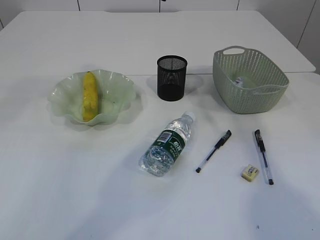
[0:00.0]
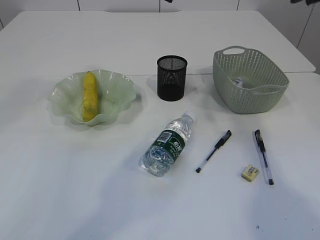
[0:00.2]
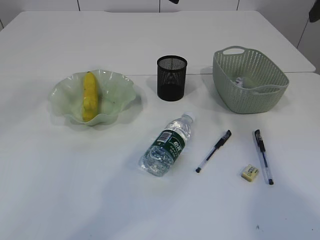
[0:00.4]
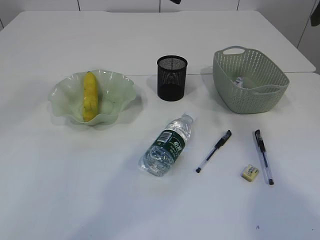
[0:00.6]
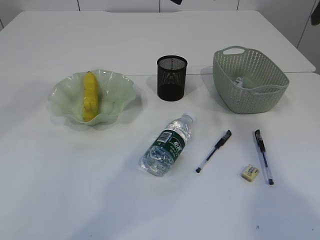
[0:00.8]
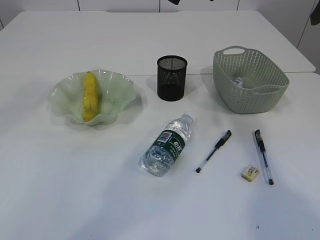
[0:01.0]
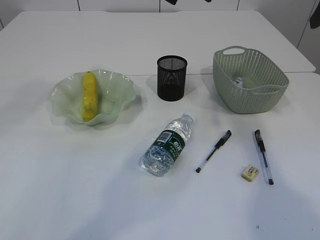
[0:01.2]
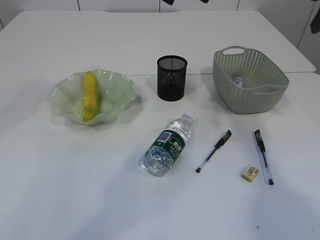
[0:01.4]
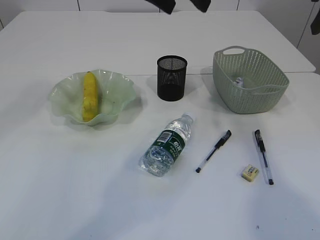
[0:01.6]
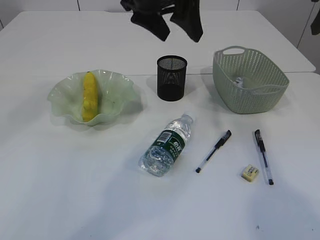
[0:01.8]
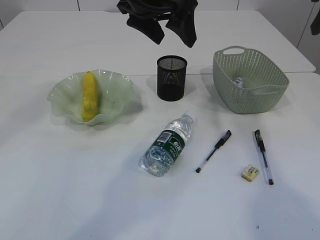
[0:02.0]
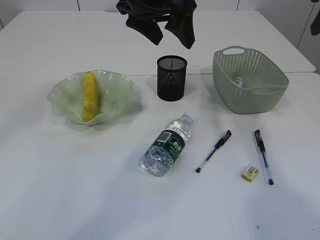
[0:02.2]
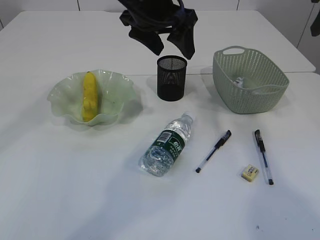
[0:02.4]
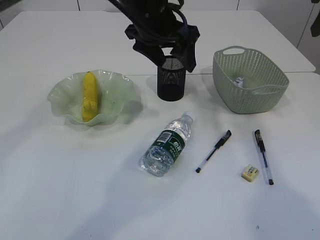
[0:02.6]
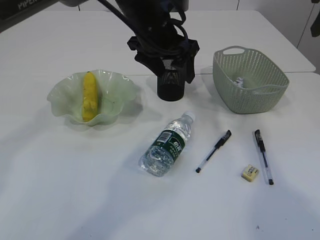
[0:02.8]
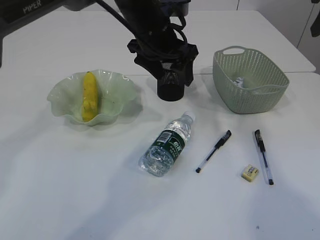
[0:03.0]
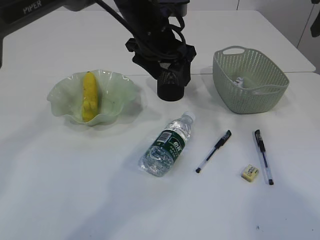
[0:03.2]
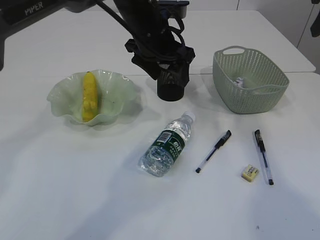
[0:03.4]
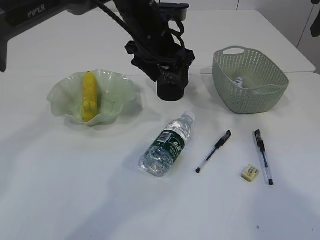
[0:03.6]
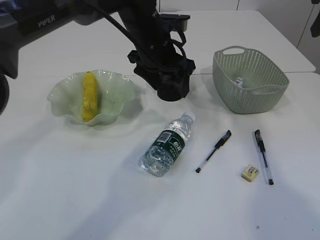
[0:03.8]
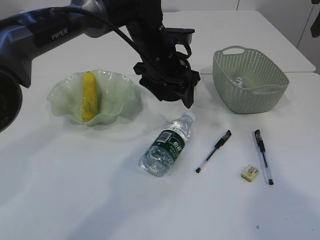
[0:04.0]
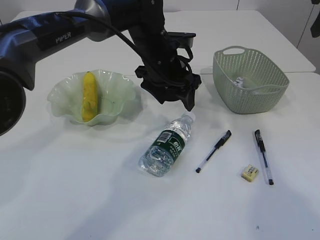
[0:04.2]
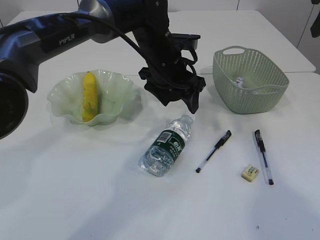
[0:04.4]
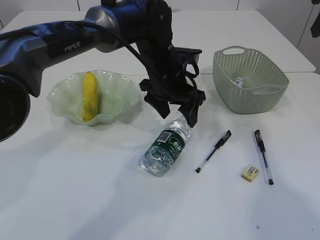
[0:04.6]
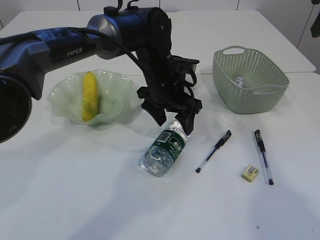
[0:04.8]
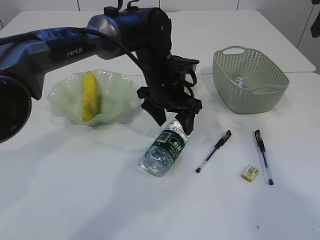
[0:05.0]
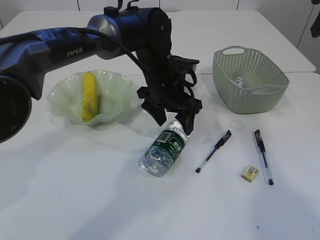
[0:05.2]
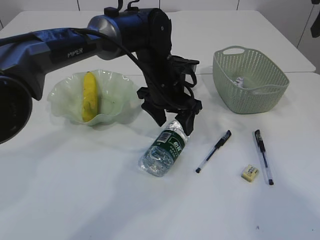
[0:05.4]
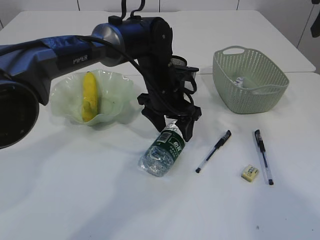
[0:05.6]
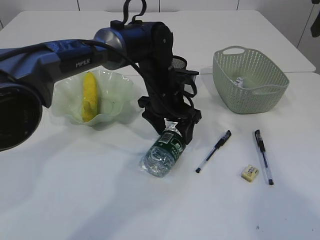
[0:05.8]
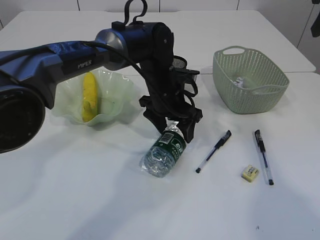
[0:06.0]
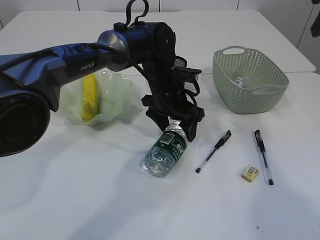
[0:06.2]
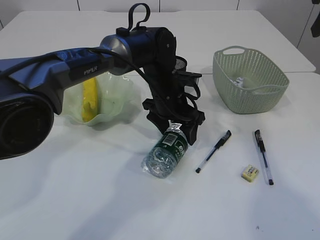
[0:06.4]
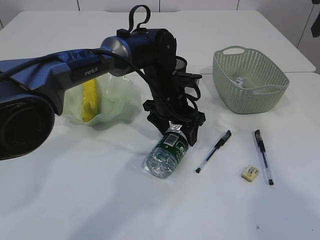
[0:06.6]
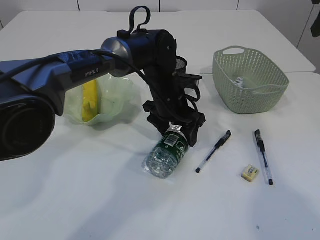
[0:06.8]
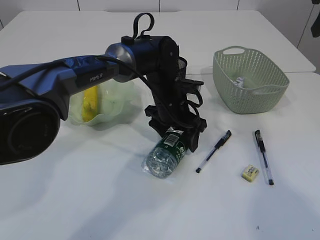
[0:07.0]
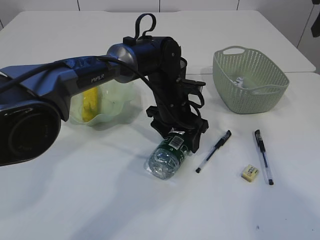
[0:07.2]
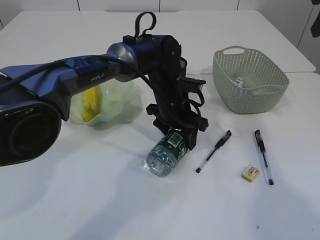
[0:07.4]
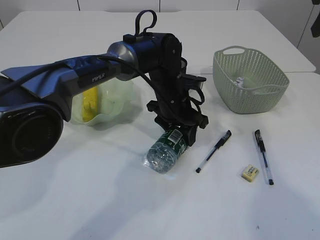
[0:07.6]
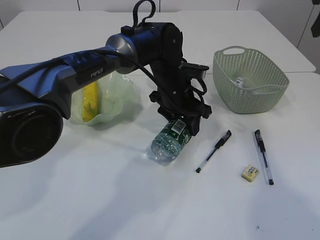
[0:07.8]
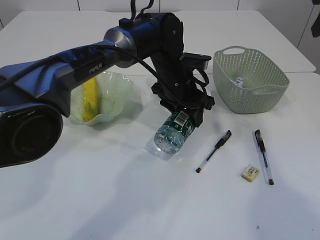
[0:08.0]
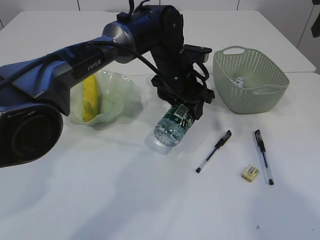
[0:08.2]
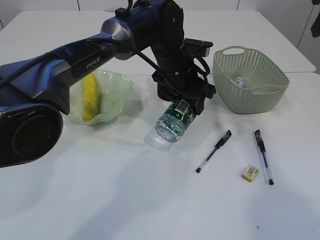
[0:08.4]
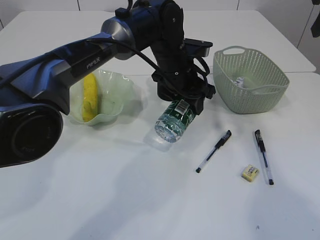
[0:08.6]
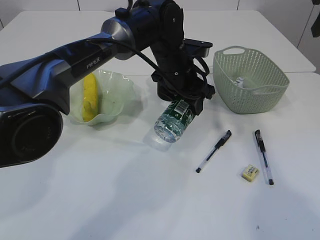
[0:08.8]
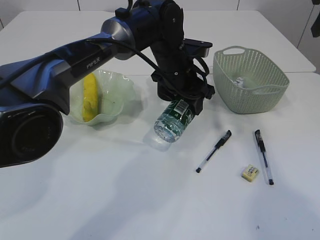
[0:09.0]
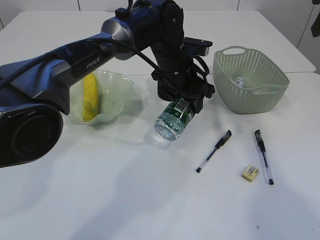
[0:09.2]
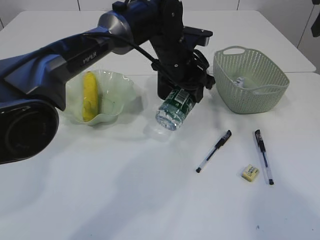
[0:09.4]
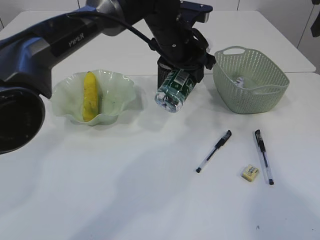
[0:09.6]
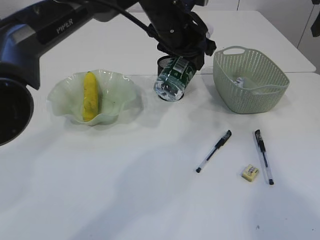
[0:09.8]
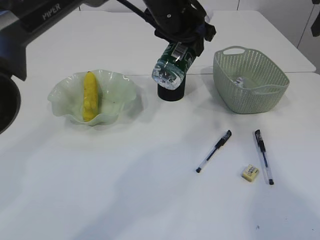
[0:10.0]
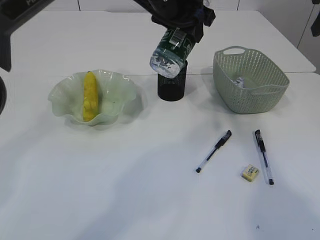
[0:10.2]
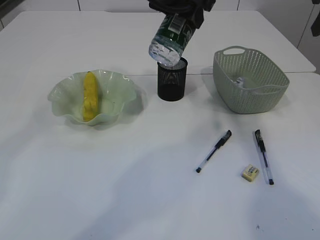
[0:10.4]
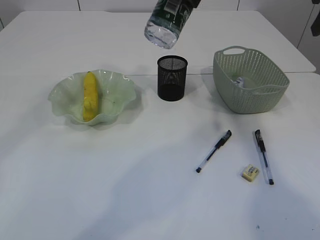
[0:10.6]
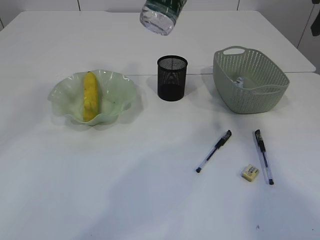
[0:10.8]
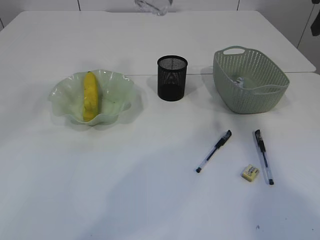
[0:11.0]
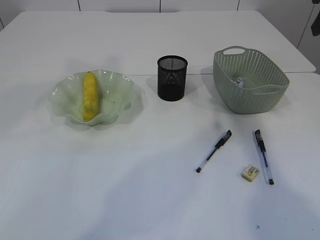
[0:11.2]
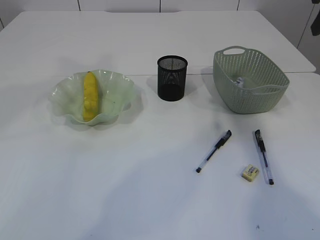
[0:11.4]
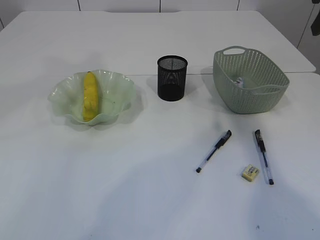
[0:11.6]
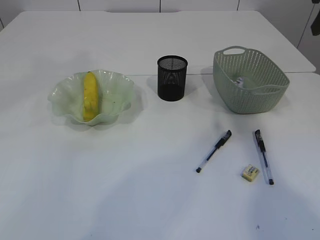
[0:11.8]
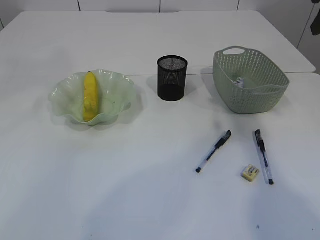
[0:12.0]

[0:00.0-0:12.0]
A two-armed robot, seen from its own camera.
Step, 0:00.0 to 0:09.4: Pick up the bottle with the left arm.
0:01.6 to 0:03.0: The left gripper goes about 10 cm downward.
0:03.0 to 0:04.4: The left gripper travels downward by roughly 5 cm.
0:04.4 to 0:06.0: The left gripper is displaced downward by about 5 cm.
0:06.0 to 0:07.6: The left gripper closes its fingers.
0:07.6 to 0:09.0: The left gripper travels upward by some 5 cm.
0:09.0 to 0:10.4: The left gripper is displaced upward by some 15 cm.
0:10.4 to 0:12.0: The left gripper goes approximately 25 cm upward, backward and to the left.

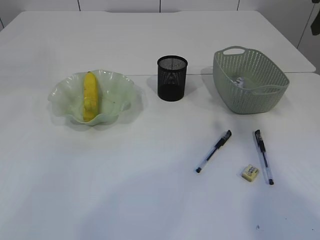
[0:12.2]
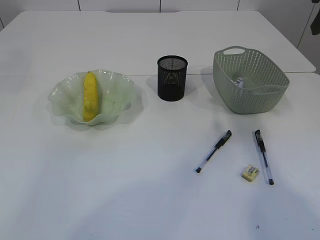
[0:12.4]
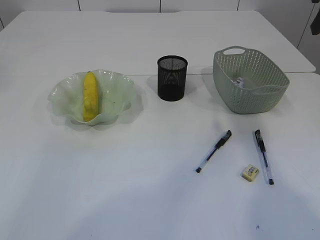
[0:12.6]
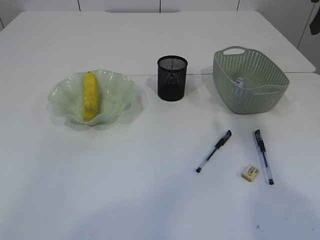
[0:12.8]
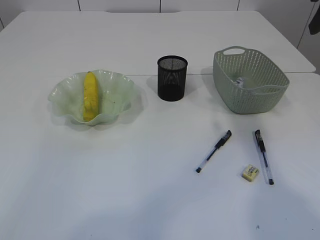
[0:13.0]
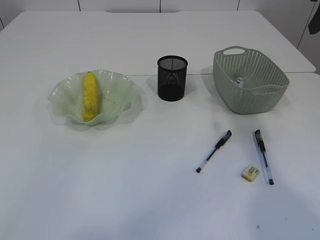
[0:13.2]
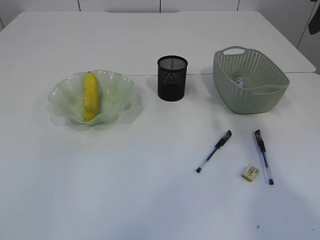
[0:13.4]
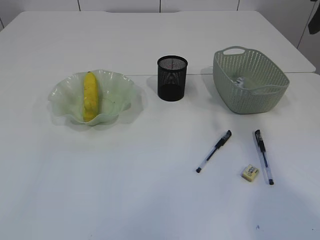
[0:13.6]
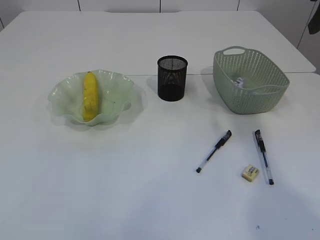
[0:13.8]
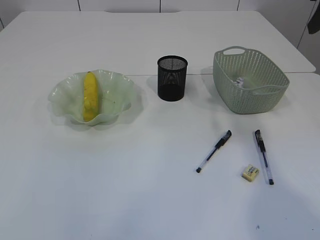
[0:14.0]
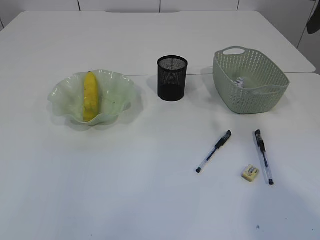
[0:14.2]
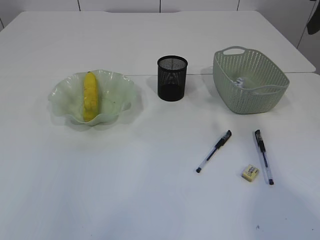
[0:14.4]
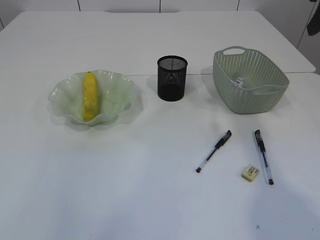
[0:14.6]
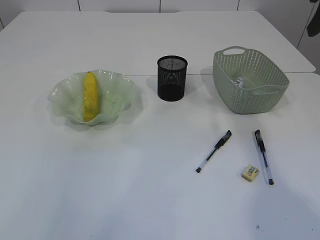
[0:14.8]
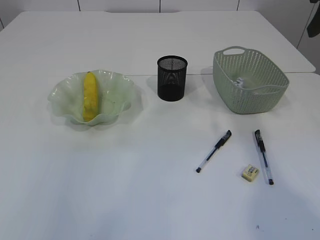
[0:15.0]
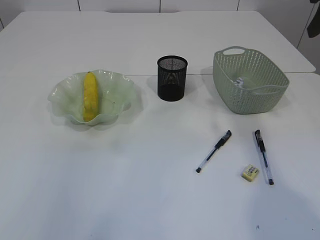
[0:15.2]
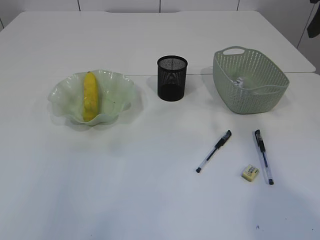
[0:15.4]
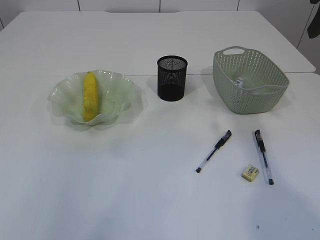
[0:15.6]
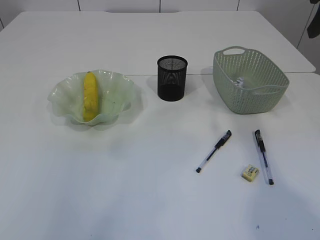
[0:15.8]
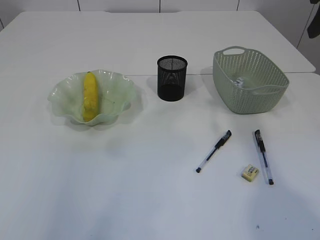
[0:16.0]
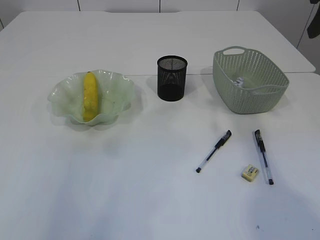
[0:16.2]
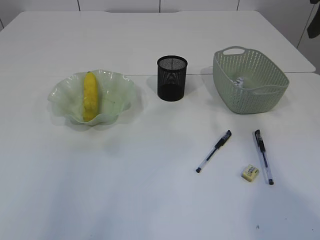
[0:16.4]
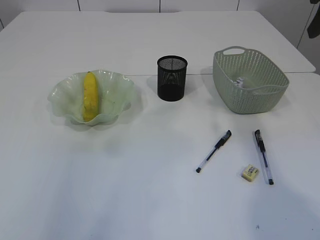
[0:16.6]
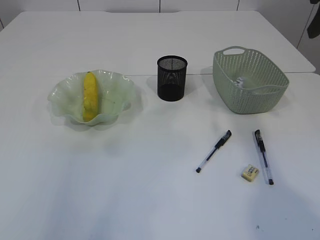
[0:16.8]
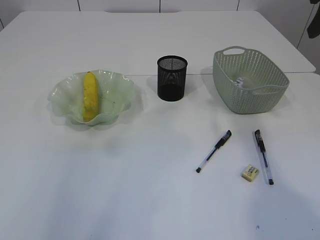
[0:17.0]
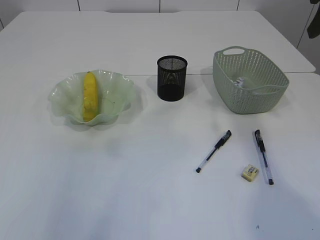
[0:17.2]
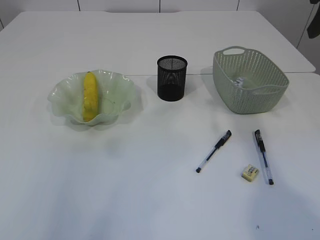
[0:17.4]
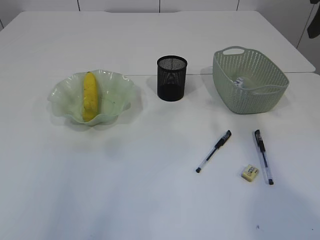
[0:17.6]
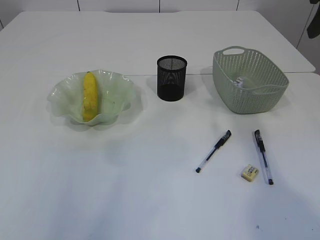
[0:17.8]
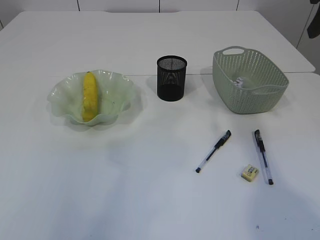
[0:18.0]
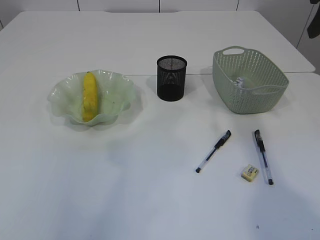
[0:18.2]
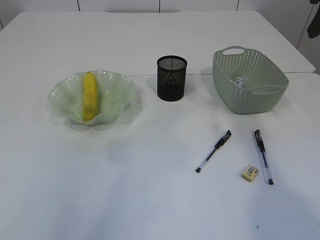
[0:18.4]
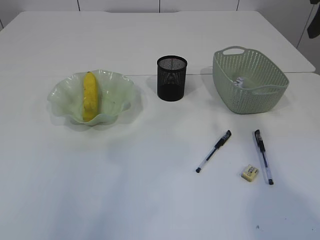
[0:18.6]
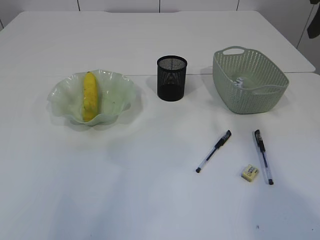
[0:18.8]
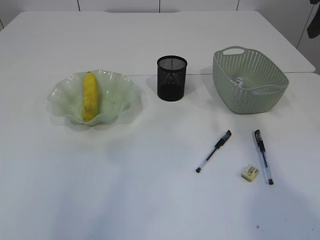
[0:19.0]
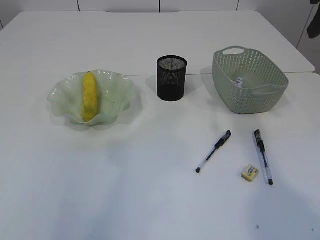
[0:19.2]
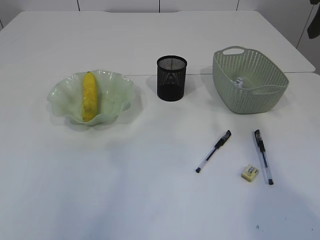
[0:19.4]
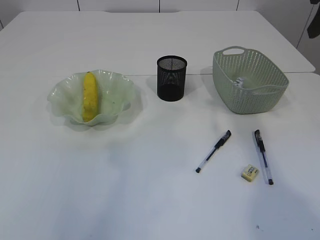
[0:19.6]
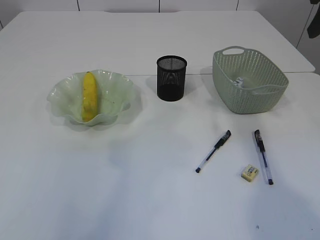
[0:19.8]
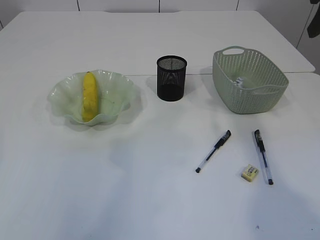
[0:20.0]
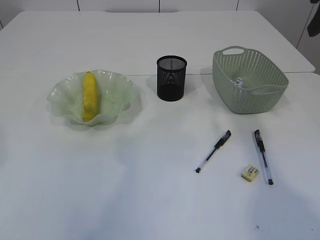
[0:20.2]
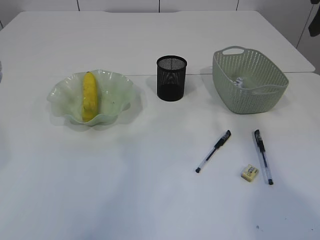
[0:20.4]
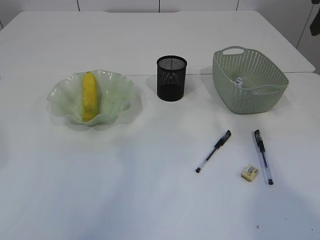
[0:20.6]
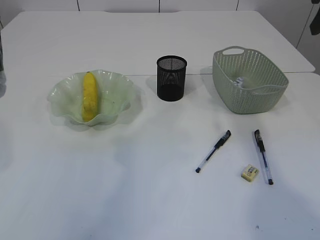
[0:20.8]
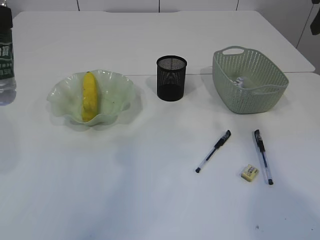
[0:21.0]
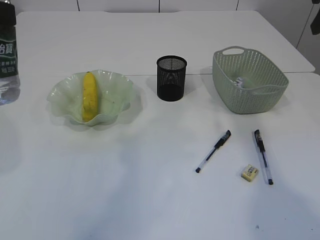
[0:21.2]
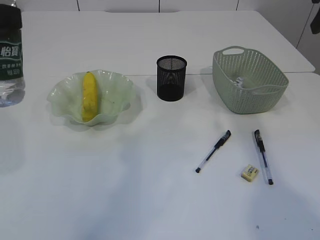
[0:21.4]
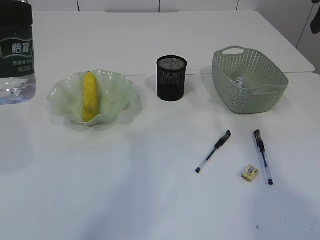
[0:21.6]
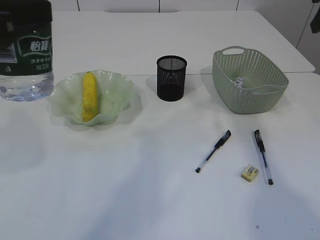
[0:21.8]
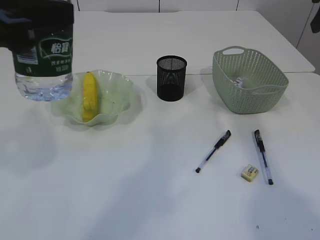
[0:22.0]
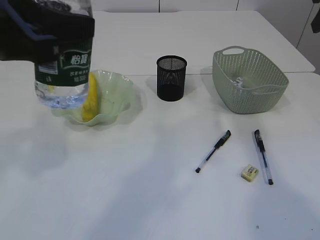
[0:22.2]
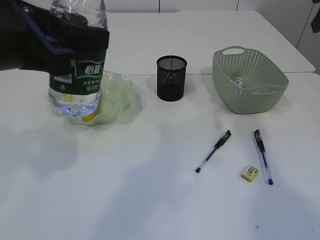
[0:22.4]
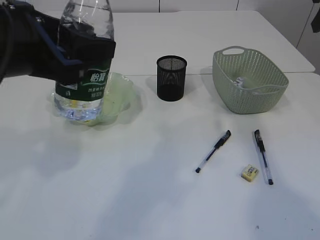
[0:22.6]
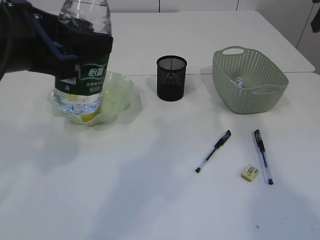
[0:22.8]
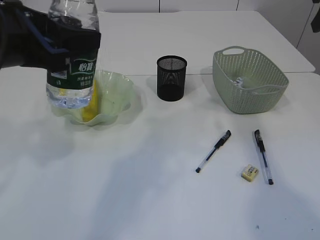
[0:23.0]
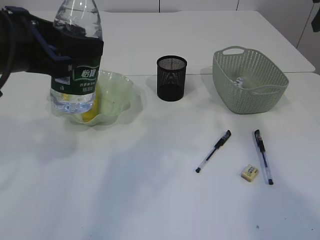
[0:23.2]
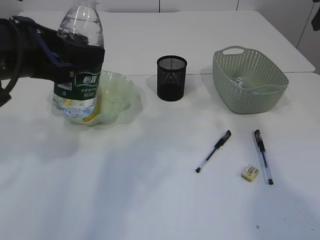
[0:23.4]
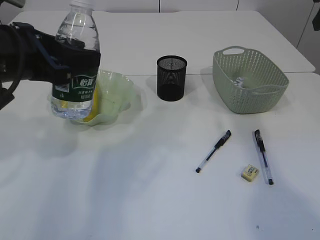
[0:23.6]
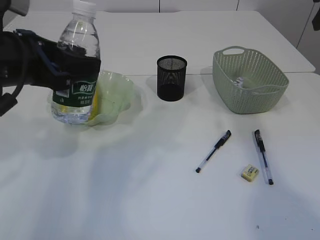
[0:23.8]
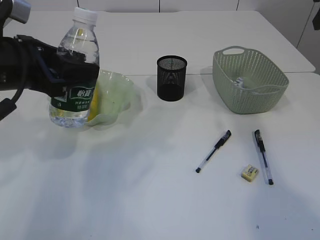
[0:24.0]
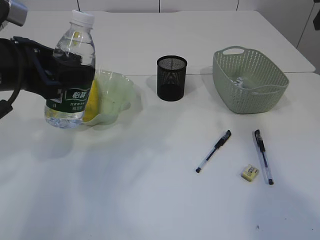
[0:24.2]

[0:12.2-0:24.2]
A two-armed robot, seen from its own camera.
0:19.8 to 0:21.2: The grippers stay close to where they were, moving slightly.
0:21.2 to 0:22.6: The left gripper is displaced to the right by some 5 cm.
0:22.6 to 0:24.2: The left gripper goes approximately 10 cm forward, downward and to the left.
